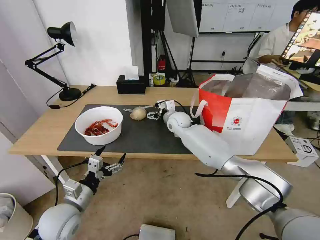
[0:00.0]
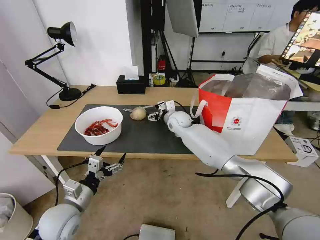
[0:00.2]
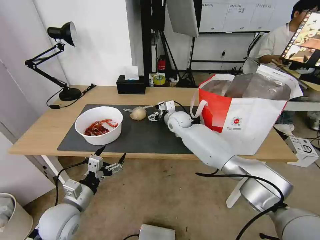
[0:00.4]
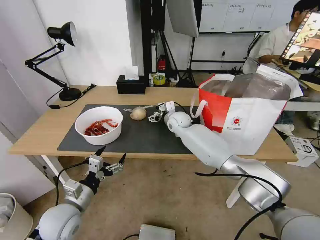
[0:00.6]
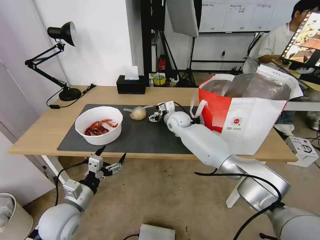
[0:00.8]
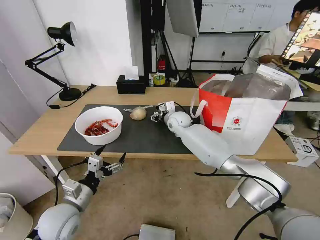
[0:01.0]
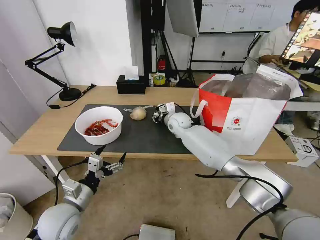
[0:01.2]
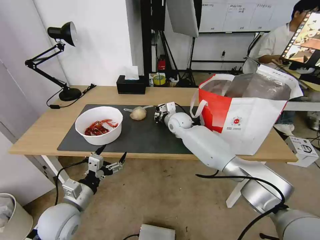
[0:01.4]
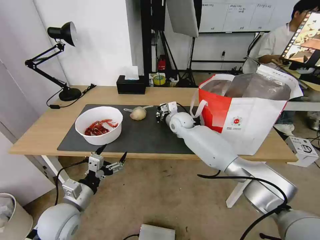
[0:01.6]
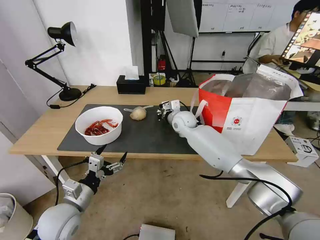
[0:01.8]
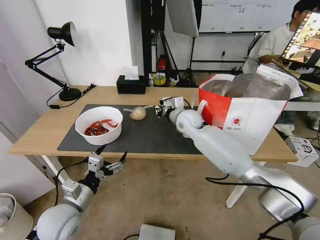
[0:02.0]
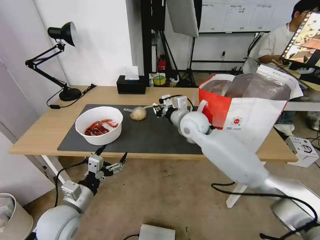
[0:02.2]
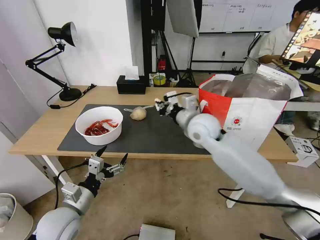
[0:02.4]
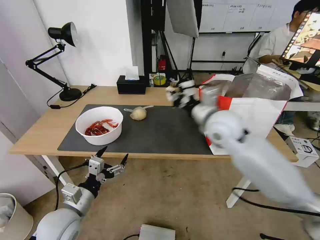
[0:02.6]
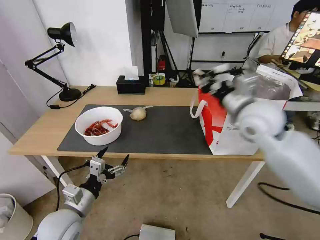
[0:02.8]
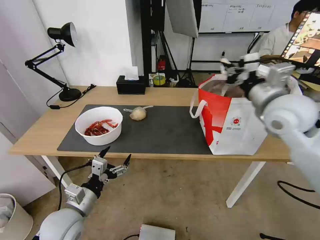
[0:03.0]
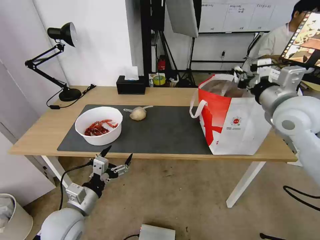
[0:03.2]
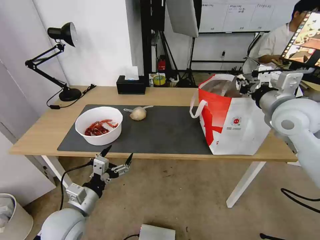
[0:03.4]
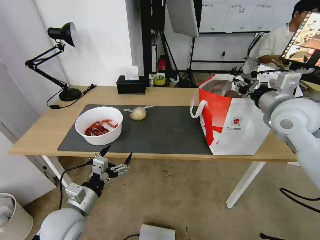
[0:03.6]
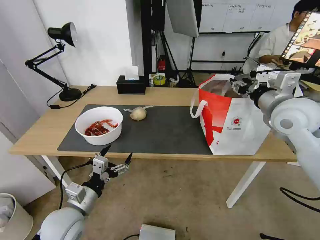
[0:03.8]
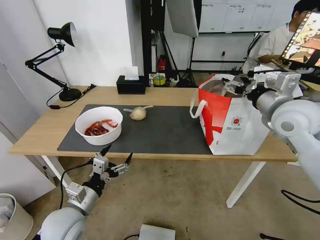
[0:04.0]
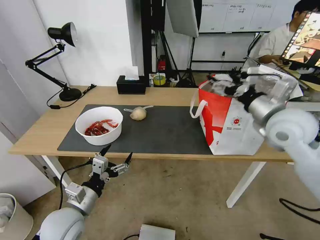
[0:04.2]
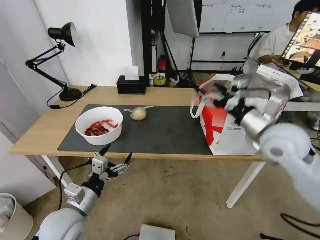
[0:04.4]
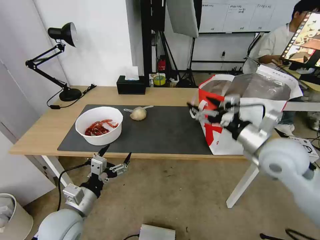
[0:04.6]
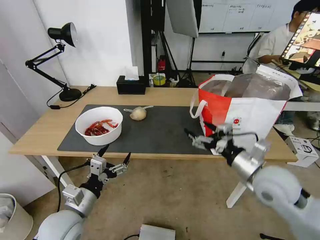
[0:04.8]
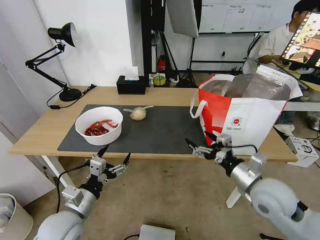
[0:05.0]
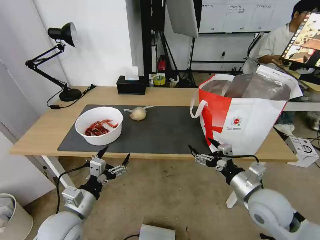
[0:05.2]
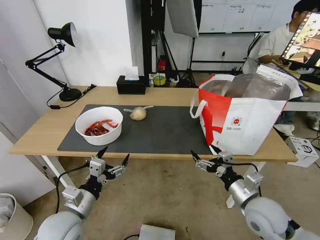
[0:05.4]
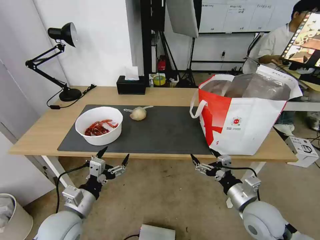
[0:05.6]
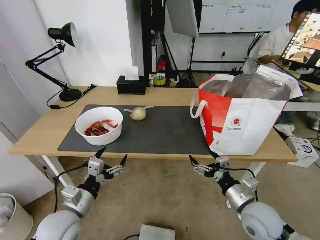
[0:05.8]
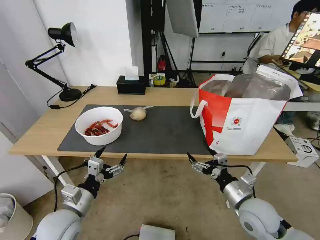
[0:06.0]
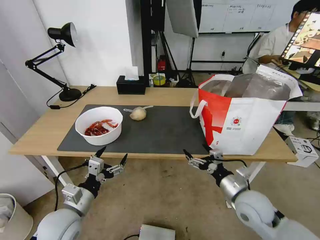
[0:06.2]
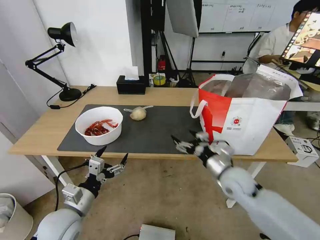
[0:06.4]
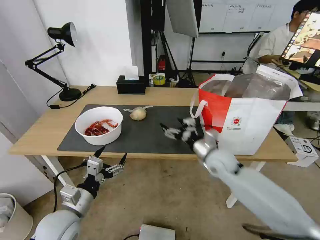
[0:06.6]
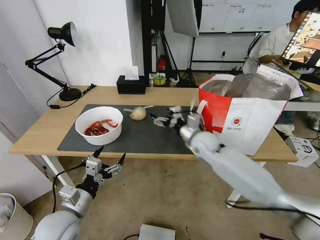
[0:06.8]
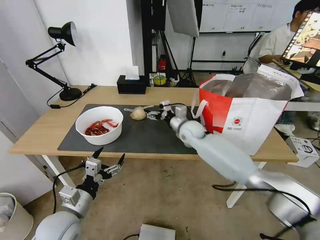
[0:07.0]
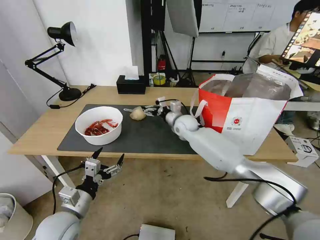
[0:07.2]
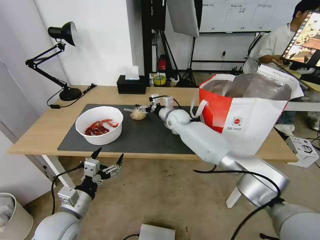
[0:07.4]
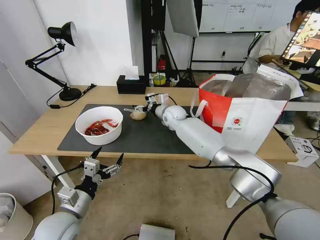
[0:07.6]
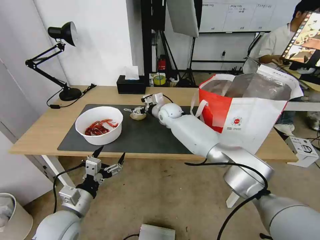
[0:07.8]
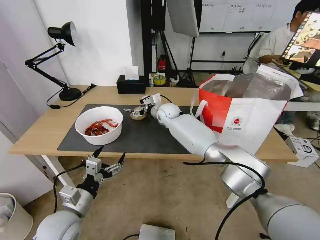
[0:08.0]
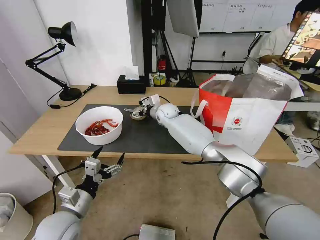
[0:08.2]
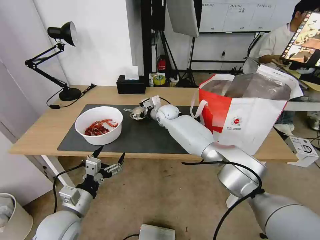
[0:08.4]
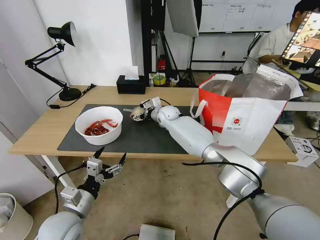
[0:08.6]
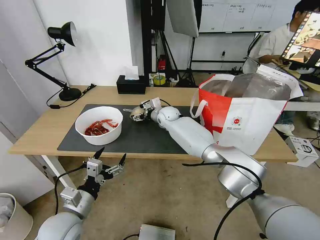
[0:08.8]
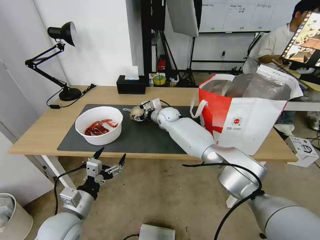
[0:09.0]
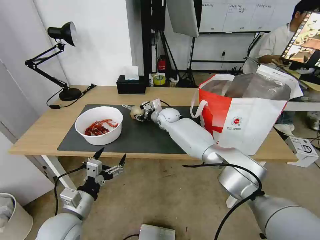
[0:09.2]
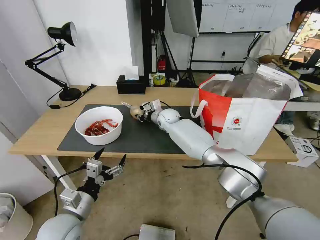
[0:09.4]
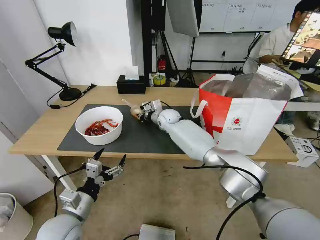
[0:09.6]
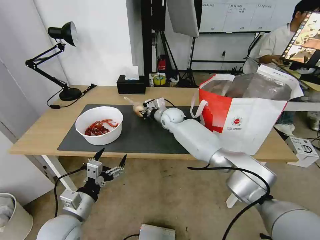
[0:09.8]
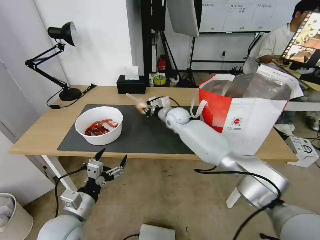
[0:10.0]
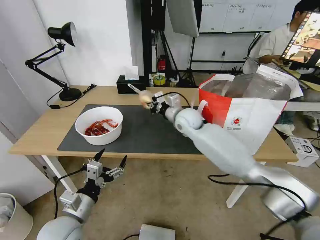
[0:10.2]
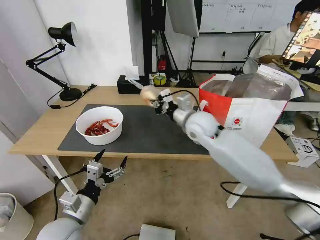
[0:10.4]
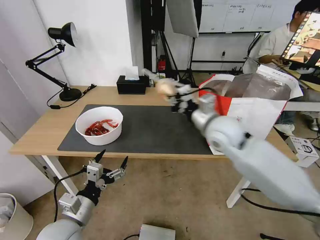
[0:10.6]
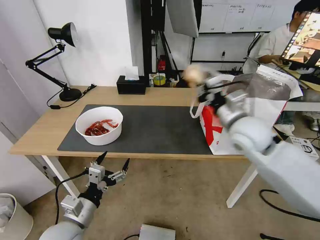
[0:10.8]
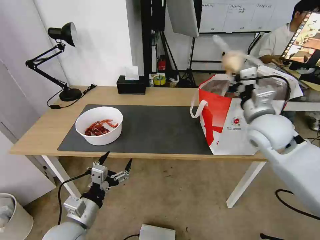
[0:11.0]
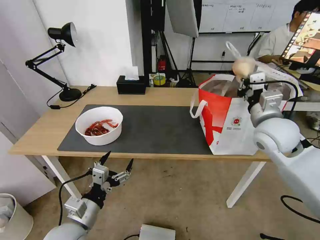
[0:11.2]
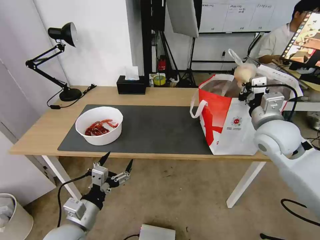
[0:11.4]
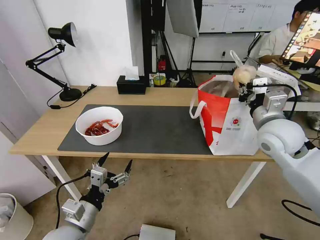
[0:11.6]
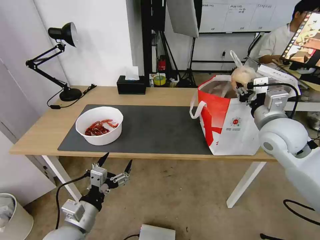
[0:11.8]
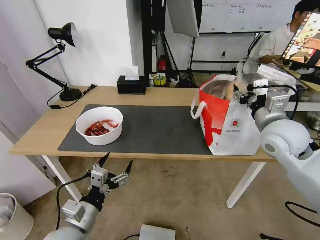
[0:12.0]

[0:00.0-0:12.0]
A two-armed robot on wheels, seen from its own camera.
Task of the whole recording: Pick up the trash from the table and place it into the takeout bag.
0:00.0 to 0:01.6: The right gripper closes.
0:01.6 to 0:03.0: The right gripper is displaced upward, to the right and backward by about 35 cm.
0:03.0 to 0:04.4: The right gripper goes roughly 5 cm downward, and opens its fingers.
0:04.4 to 0:06.0: The right gripper goes approximately 20 cm downward and backward.
0:06.0 to 0:07.6: The right gripper travels forward and to the left by about 40 cm.
0:07.6 to 0:09.0: The grippers make only small movements.
0:09.0 to 0:10.4: The right gripper travels backward, upward and to the right by some 25 cm, and closes.
0:10.4 to 0:12.0: The right gripper moves to the right and backward, about 20 cm, and opens up.

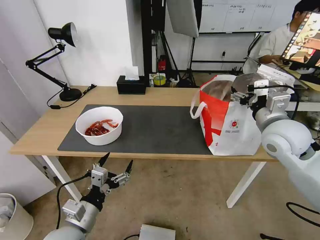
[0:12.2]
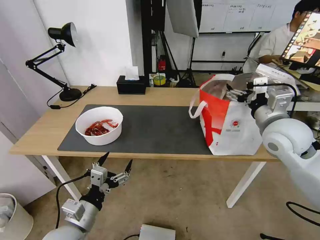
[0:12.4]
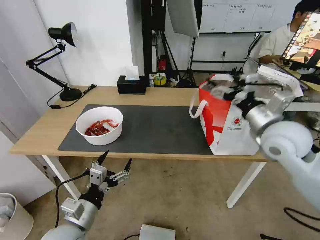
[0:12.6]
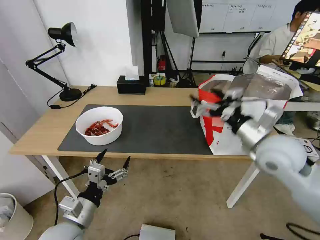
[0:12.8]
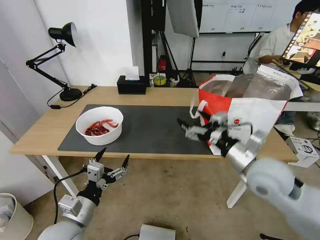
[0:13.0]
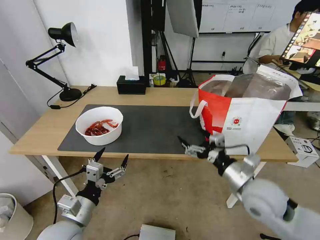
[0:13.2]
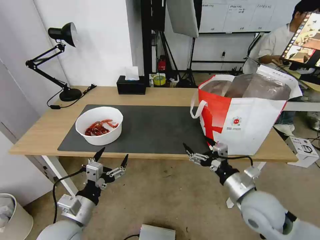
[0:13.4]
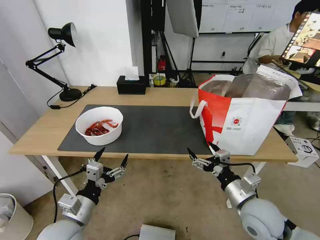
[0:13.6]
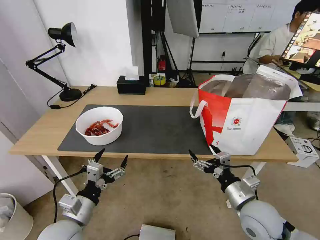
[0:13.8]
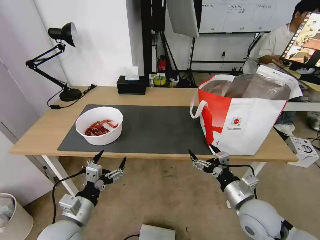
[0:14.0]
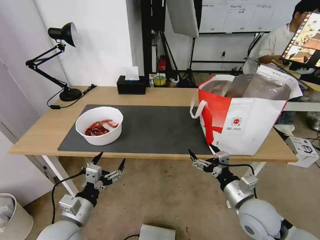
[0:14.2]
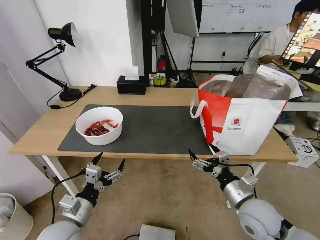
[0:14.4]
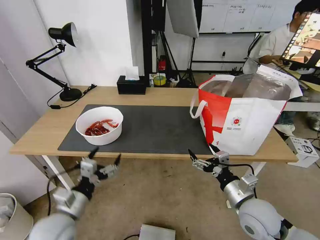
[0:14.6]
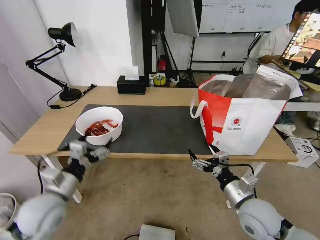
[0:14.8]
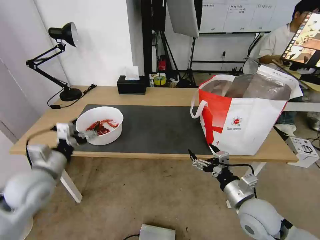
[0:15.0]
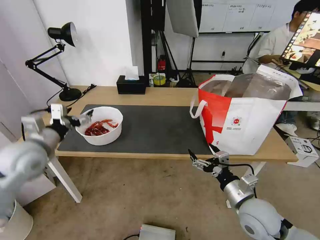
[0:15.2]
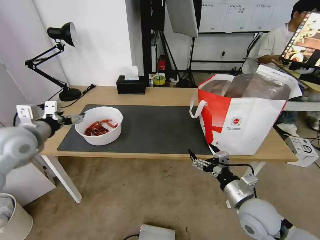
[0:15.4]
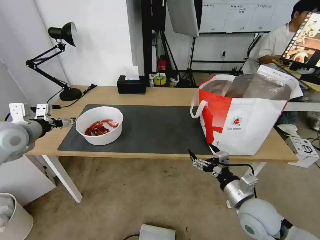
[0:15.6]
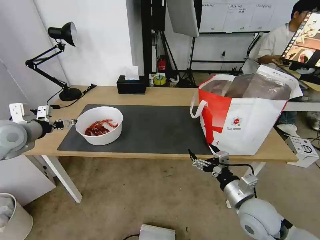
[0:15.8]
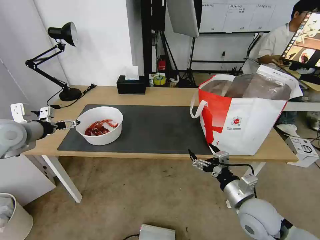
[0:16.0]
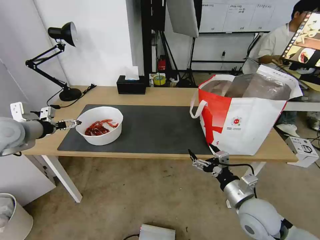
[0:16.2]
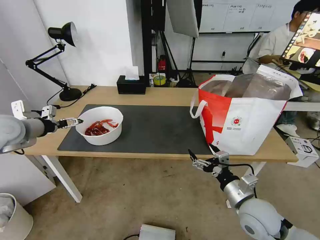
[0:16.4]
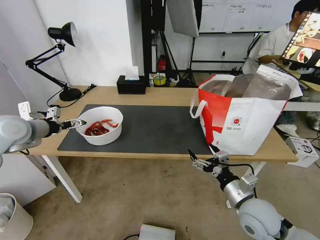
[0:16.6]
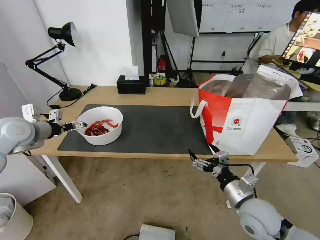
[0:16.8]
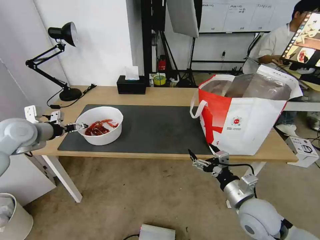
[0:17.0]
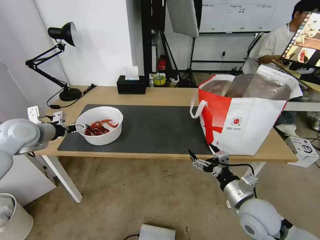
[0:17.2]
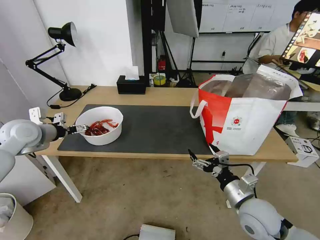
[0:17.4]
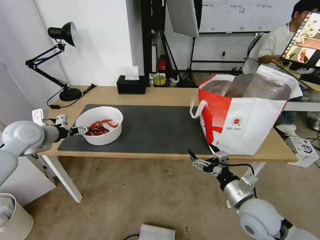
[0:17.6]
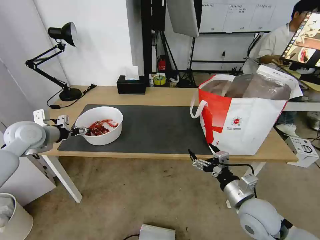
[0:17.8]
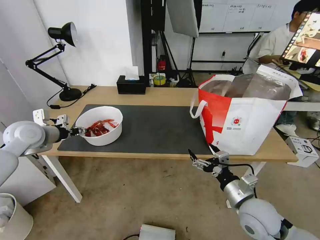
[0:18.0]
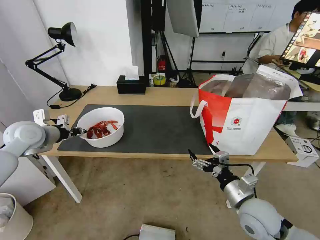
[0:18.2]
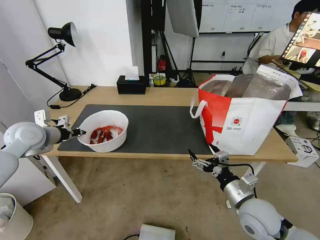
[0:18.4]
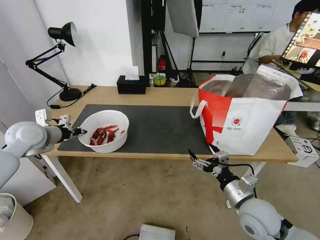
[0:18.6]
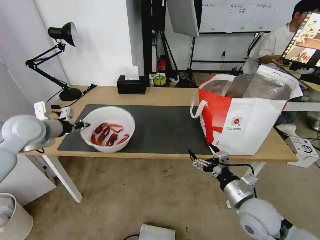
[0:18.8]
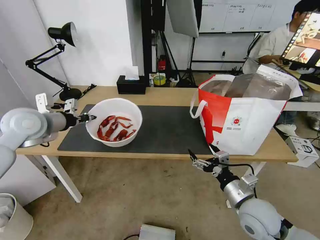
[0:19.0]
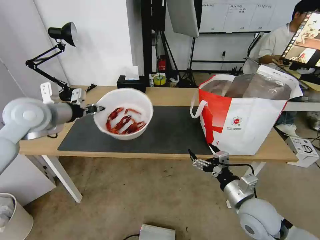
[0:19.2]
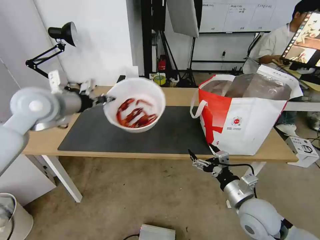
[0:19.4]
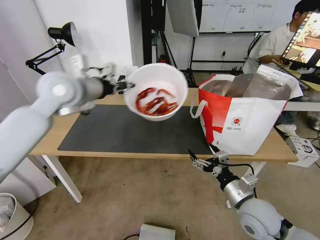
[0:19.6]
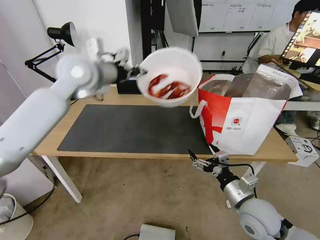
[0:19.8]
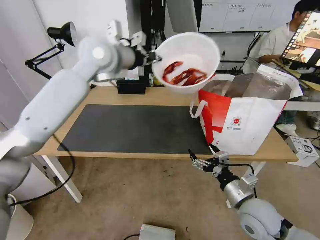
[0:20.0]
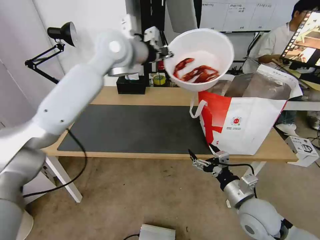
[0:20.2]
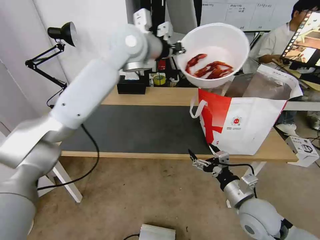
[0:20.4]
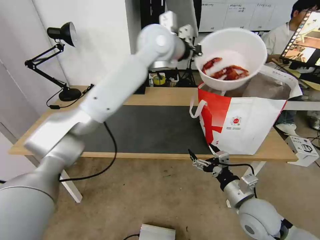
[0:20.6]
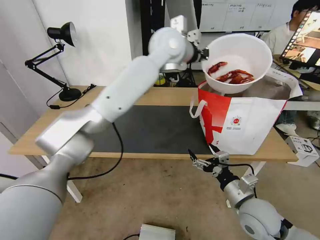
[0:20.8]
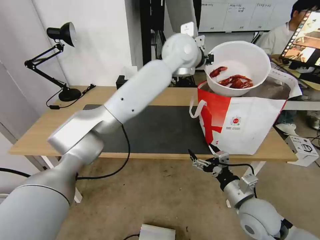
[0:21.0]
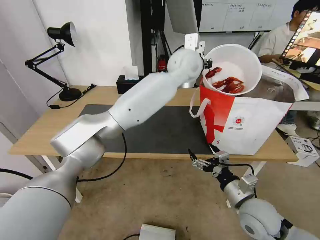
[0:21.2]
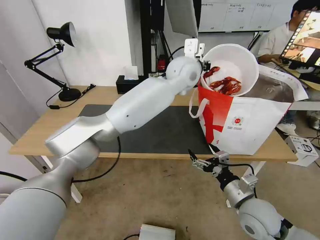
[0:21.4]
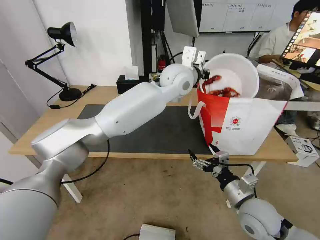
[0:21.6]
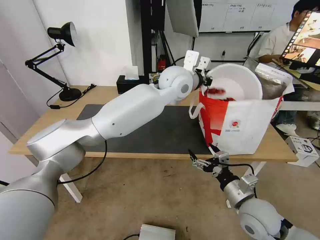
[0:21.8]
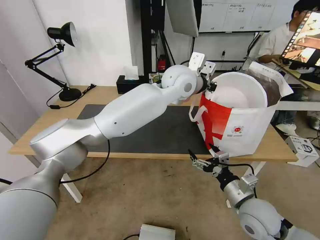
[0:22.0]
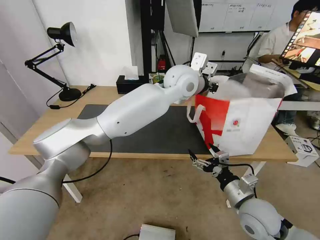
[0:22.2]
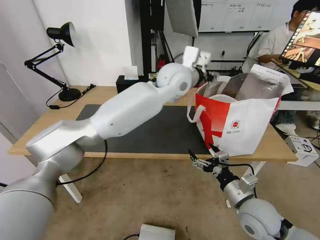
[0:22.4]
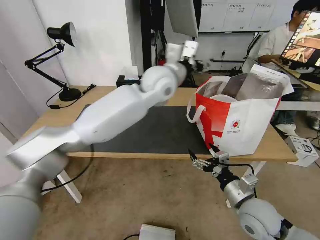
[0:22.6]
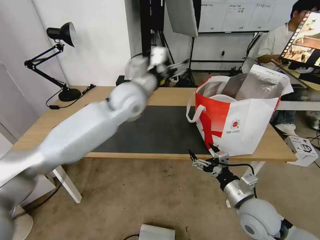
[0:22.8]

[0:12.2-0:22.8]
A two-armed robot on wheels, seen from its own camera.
Task of the whole recording: Pick up the trash from the table and place it into the takeout bag.
0:12.2 to 0:13.8: The right gripper goes some 25 cm downward and backward.
0:13.8 to 0:15.2: The left gripper travels forward, upward and to the left by roughly 25 cm.
0:15.2 to 0:16.8: The left gripper travels forward and to the left by roughly 10 cm.
0:16.8 to 0:18.2: The left gripper closes its fingers.
0:18.2 to 0:19.8: The left gripper goes some 25 cm to the right and upward.
0:19.8 to 0:21.2: The left gripper moves to the right, some 30 cm.
0:21.2 to 0:22.8: The left gripper shifts about 20 cm to the left, backward and downward, and opens its fingers.
